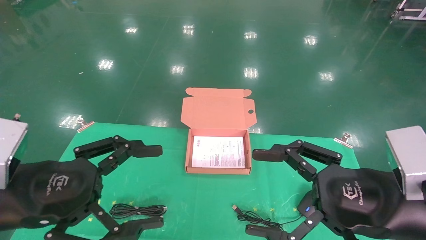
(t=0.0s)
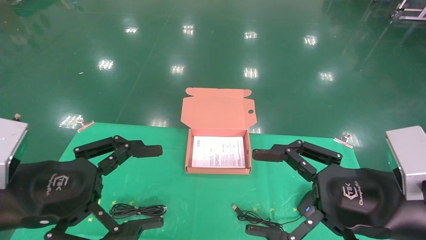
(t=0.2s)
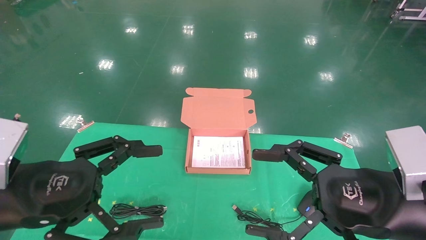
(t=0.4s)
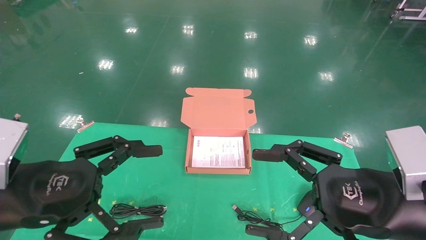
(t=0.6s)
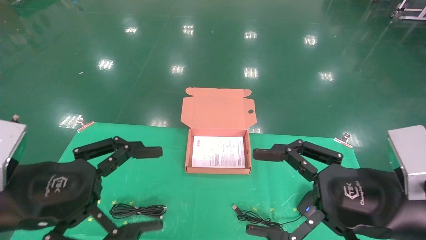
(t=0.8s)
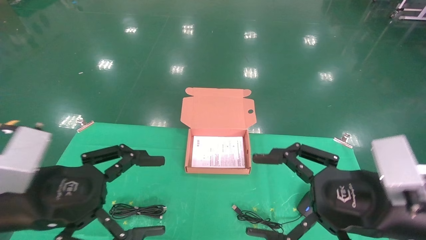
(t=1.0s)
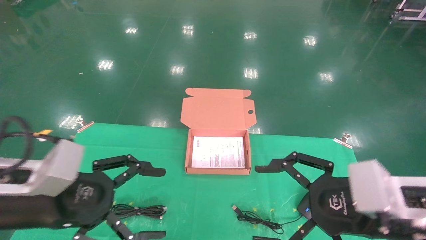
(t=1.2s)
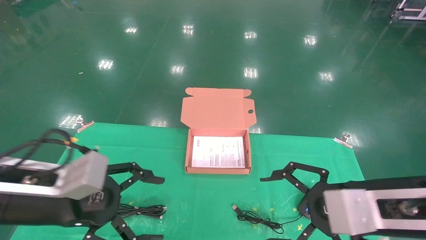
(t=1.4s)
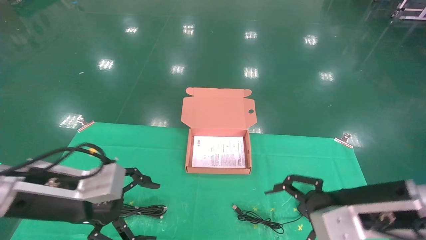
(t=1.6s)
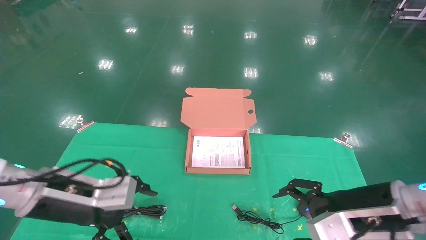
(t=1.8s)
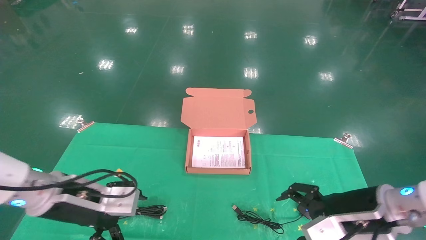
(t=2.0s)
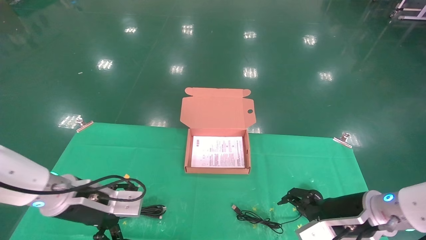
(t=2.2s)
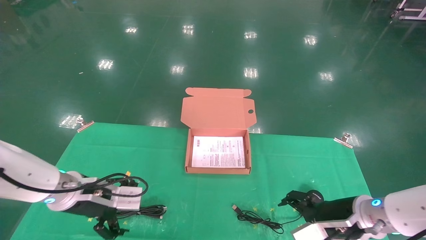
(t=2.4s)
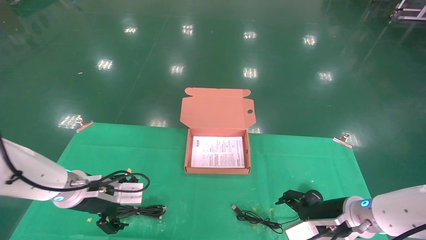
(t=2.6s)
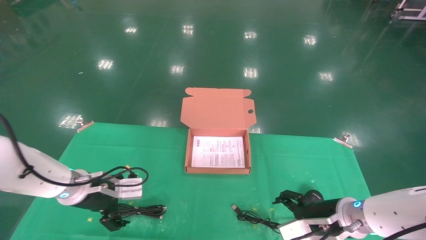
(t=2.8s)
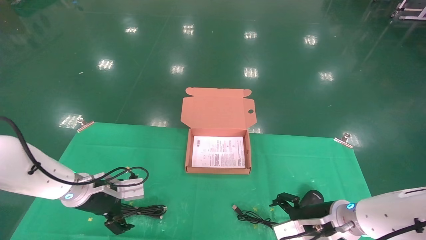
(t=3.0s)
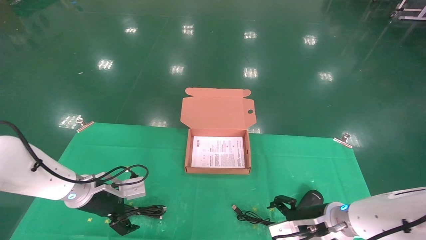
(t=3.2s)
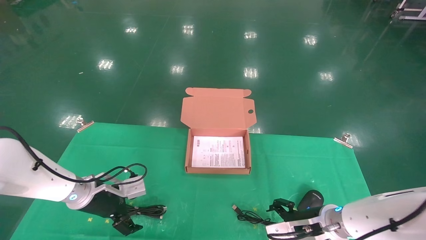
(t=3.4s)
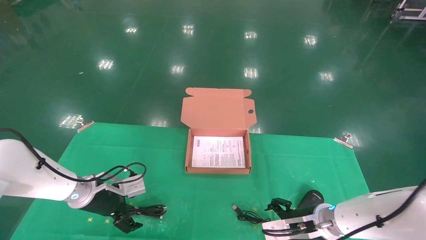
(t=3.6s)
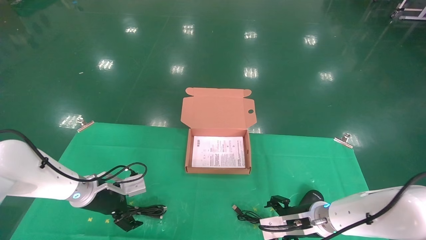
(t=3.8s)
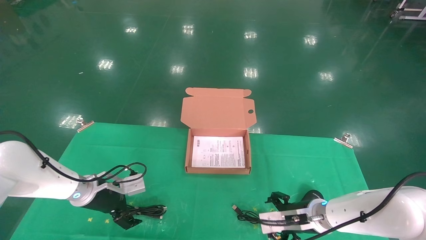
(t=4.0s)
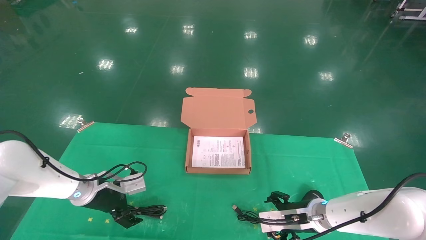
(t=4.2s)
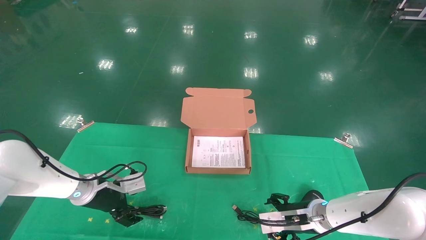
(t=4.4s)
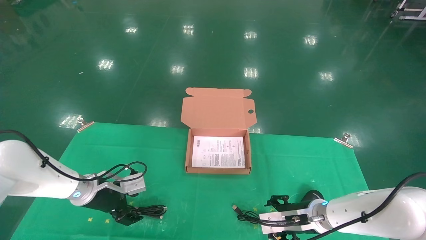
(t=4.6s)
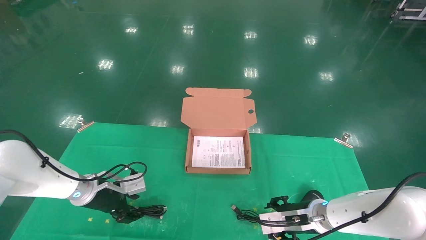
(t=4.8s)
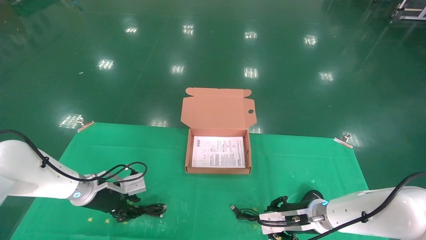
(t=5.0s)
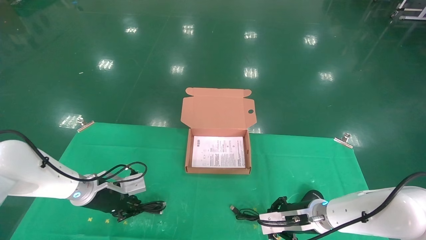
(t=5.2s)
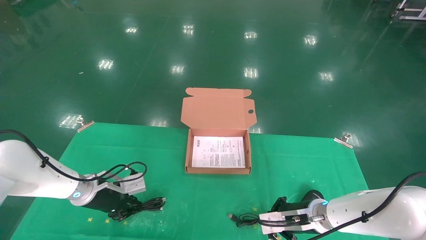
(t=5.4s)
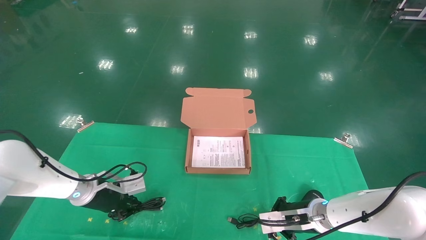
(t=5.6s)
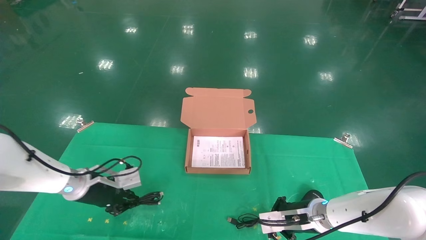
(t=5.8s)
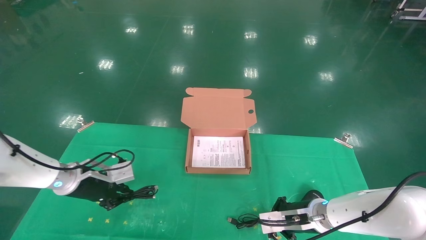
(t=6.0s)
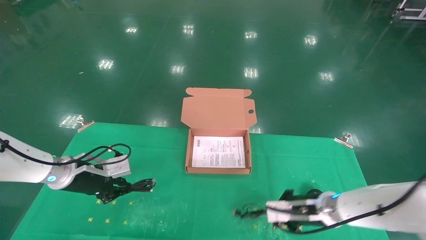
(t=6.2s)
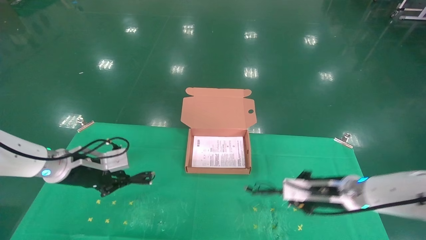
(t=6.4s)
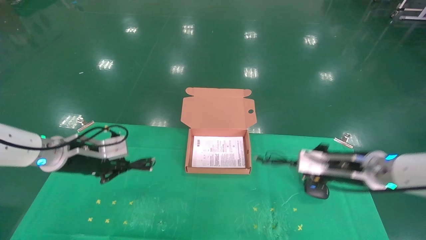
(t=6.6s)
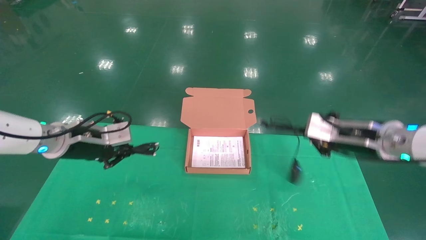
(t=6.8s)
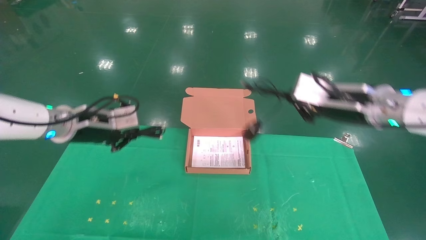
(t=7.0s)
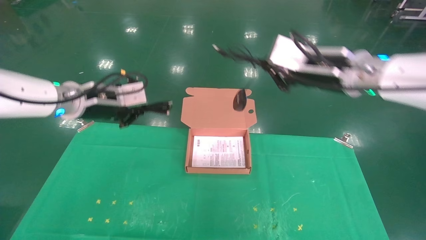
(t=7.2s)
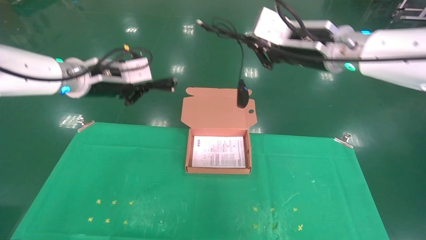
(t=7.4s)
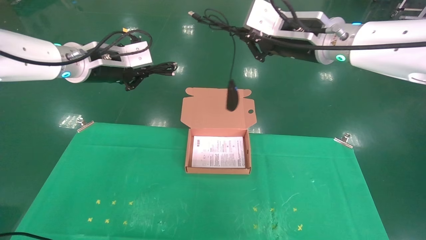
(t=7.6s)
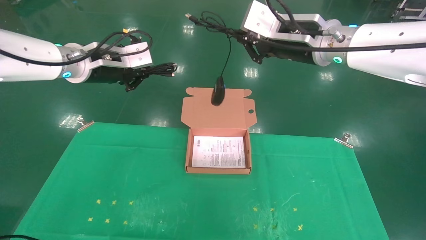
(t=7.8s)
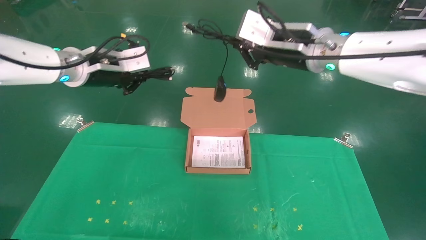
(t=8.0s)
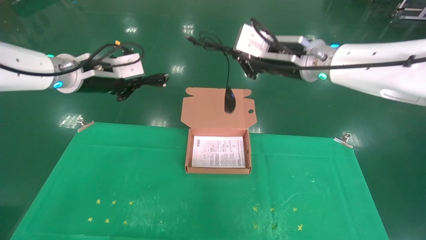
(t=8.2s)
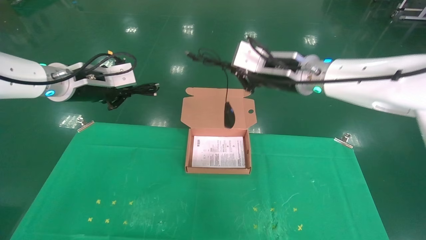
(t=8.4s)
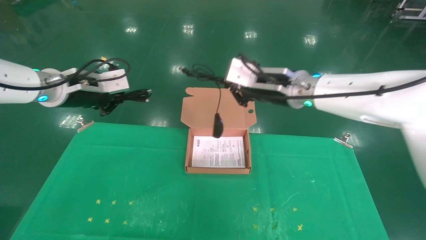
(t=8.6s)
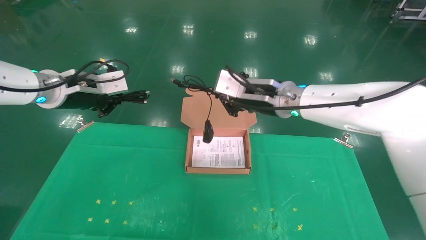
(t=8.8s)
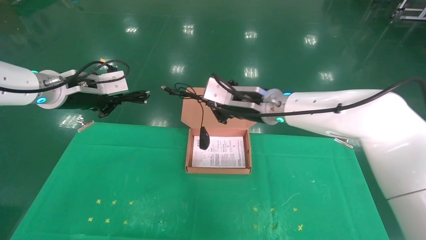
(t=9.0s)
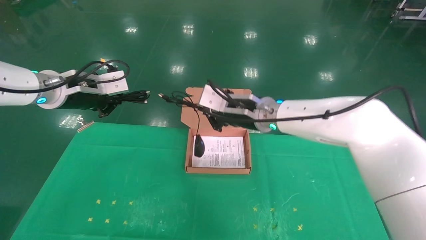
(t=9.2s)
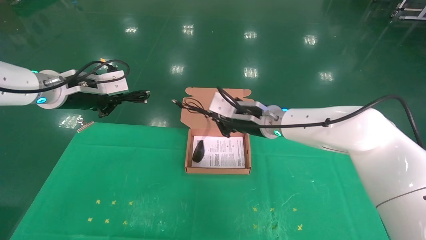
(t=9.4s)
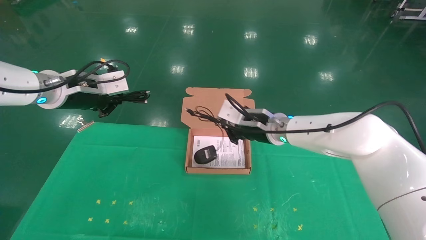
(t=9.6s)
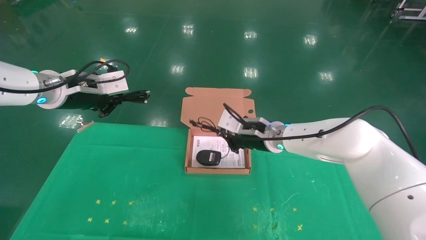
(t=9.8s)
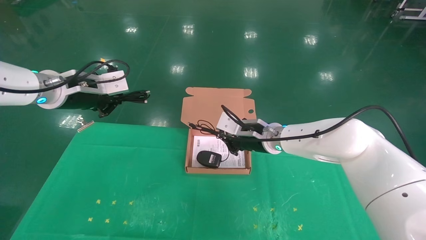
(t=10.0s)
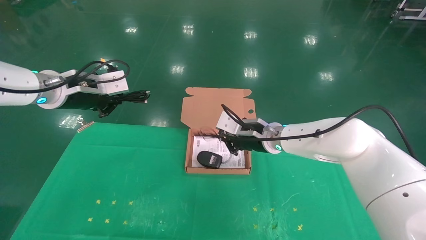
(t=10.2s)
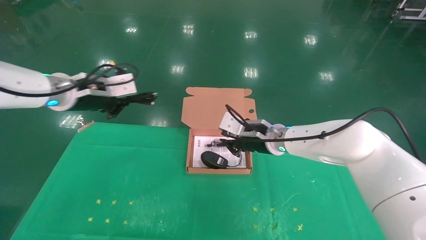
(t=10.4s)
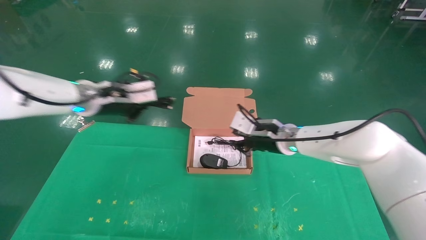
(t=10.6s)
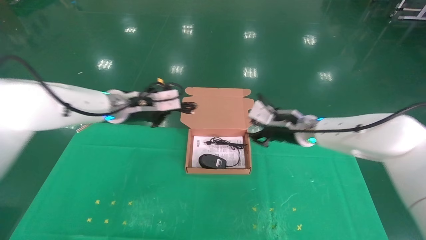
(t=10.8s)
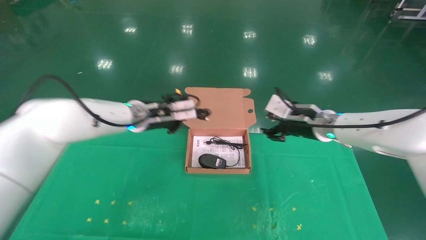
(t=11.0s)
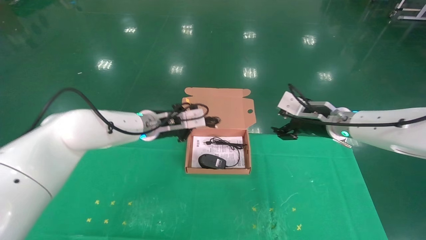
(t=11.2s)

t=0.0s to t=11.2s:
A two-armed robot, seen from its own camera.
Task of the whole recording: grasp data cable left put into box grasp mouse right put into box.
Step, t=1.4s to t=6.4s: Grab and pick up both the mouse and power cord from the accessory packaging area at the same time.
t=0.0s to t=1.6s: Both grippers travel together forward, some 5 cm.
t=1.6s to t=3.2s: The right gripper is displaced downward and forward by roughly 15 cm. The left gripper moves forward and downward, about 20 cm.
t=3.2s to t=4.8s: The left gripper closes. The right gripper shifts by roughly 5 cm.
t=4.8s to t=6.4s: The right gripper goes approximately 10 cm upward and to the right, and closes. The left gripper heads upward, covering about 10 cm, and closes its fingers.
t=6.4s to t=8.0s: The right gripper moves upward and to the left, roughly 30 cm. Meanwhile the left gripper goes approximately 20 cm upward.
t=8.0s to t=9.6s: The right gripper travels downward and forward by roughly 20 cm. The left gripper changes place by approximately 5 cm.
t=9.6s to t=11.2s: The right gripper moves to the right, approximately 15 cm, and opens. The left gripper moves to the right, downward and forward, some 20 cm.

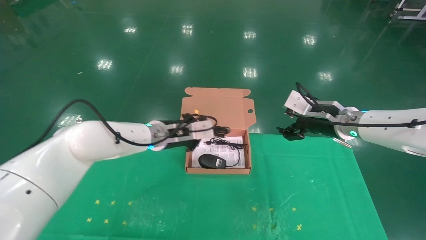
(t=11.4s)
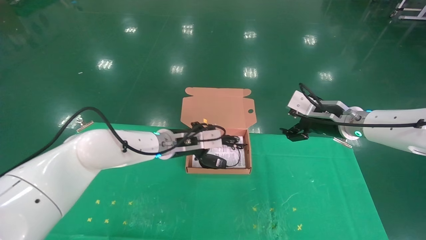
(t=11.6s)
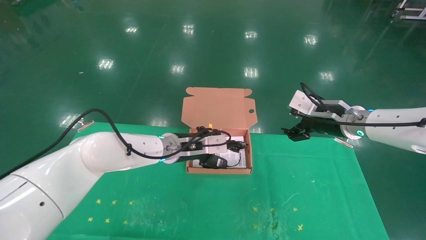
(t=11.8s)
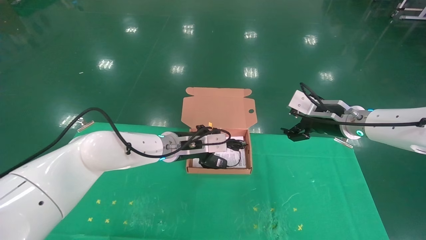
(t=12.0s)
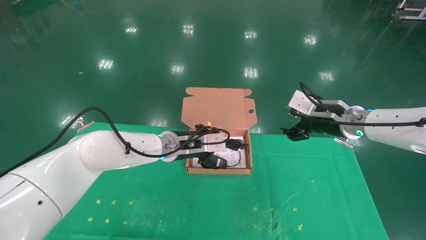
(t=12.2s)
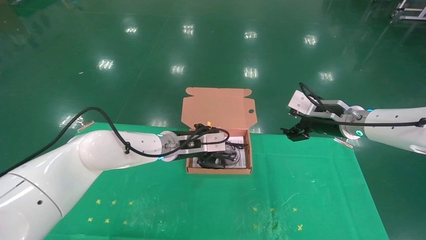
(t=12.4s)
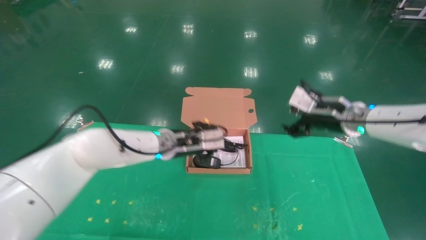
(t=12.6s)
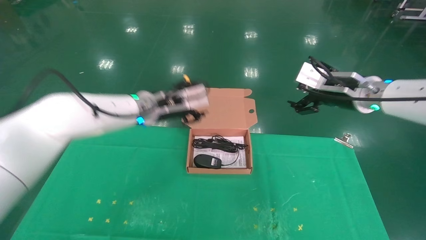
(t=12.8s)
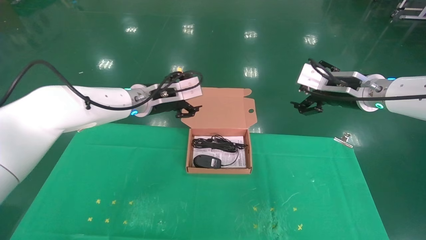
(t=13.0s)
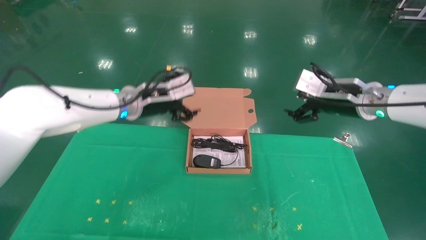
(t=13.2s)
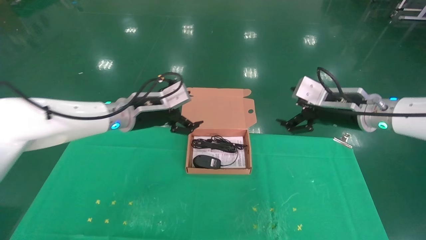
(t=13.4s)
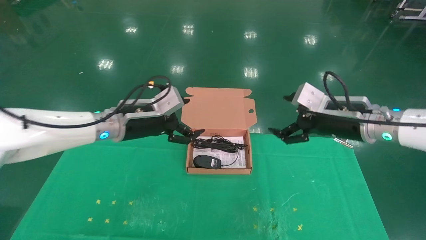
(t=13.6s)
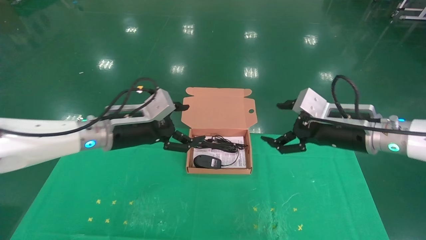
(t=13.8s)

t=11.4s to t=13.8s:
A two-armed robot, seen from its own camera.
Task of the whole recording: grasp data cable left put into box grasp mouse right put into box.
t=11.4s to t=12.6s: The grippers make only small movements.
t=12.6s to t=13.8s: The left gripper goes some 10 cm to the left and backward, and opens its fingers; the right gripper shifts some 5 cm backward.
